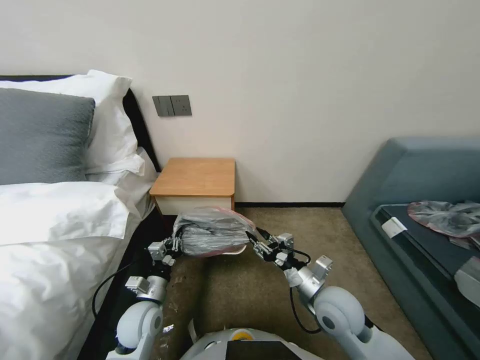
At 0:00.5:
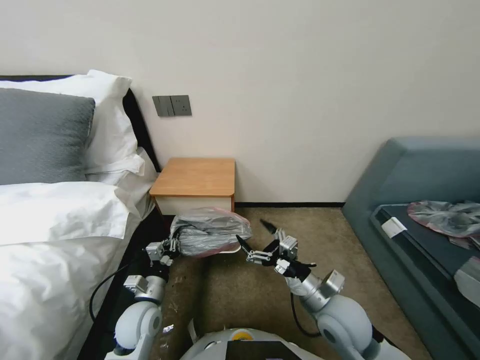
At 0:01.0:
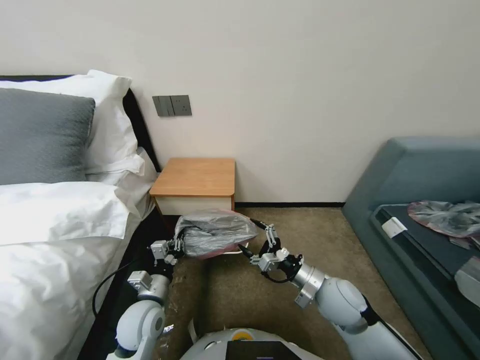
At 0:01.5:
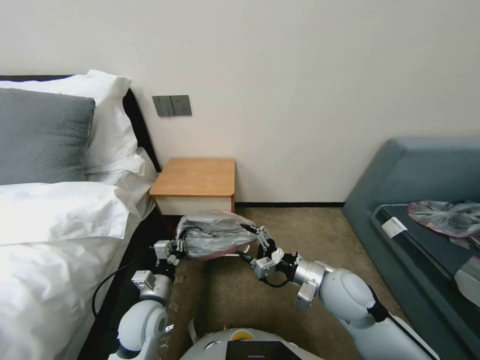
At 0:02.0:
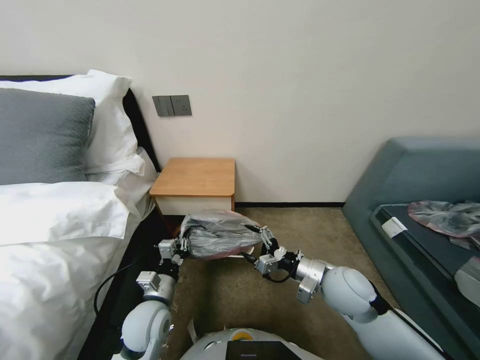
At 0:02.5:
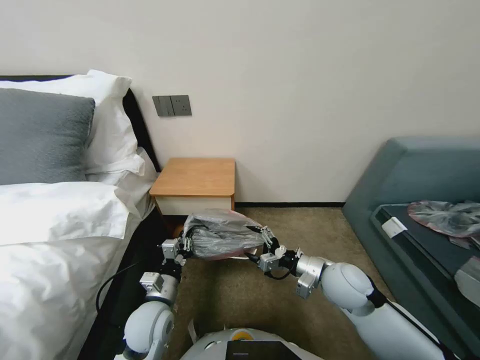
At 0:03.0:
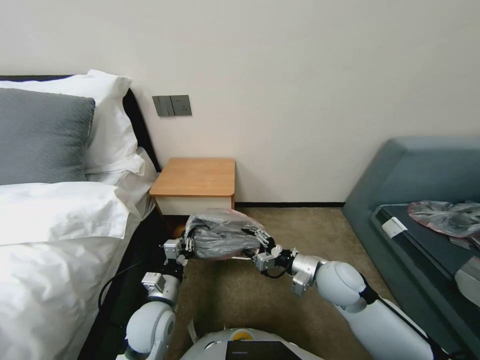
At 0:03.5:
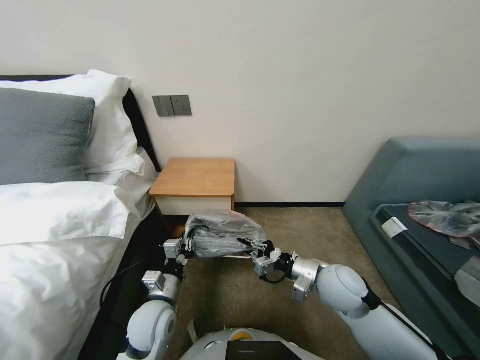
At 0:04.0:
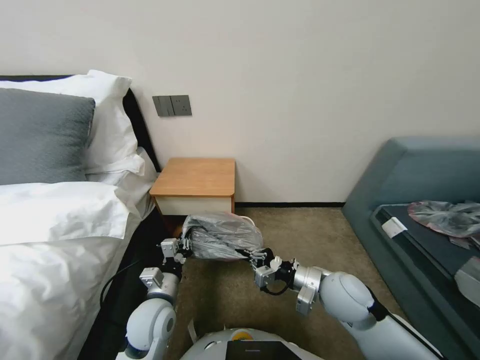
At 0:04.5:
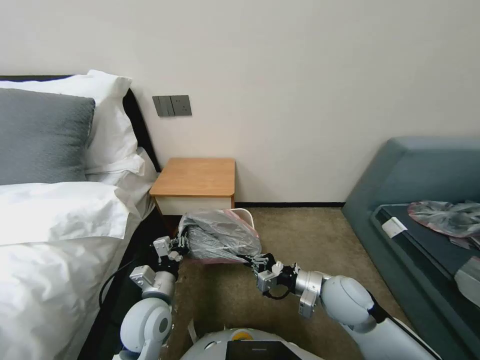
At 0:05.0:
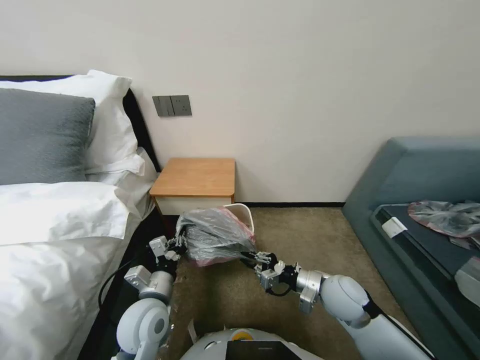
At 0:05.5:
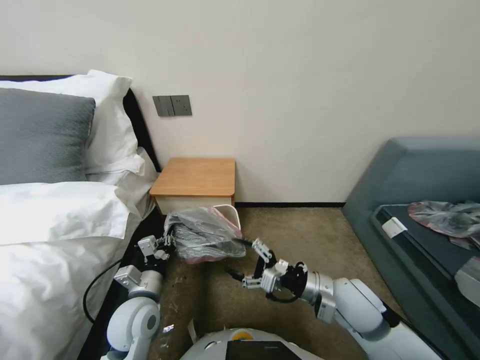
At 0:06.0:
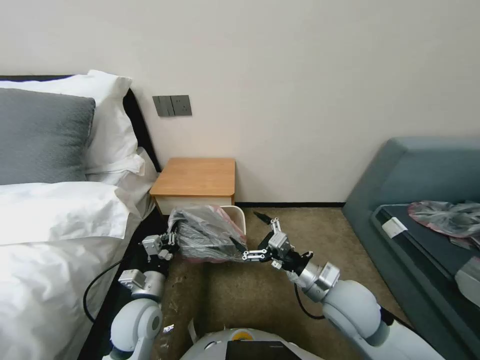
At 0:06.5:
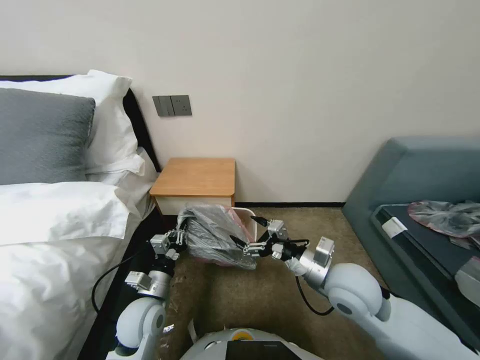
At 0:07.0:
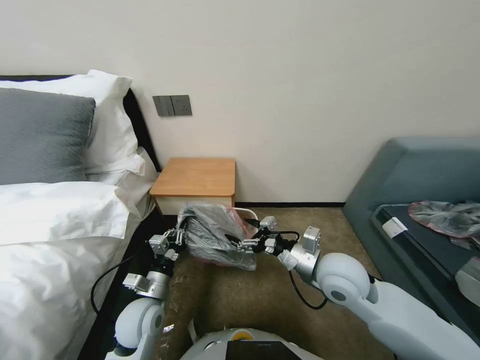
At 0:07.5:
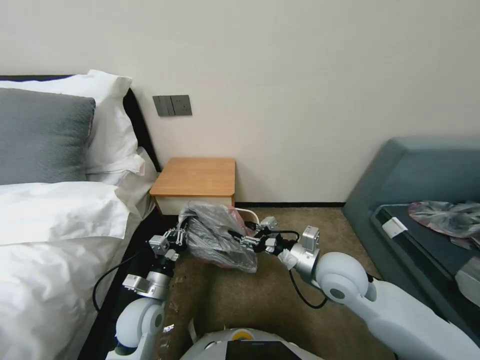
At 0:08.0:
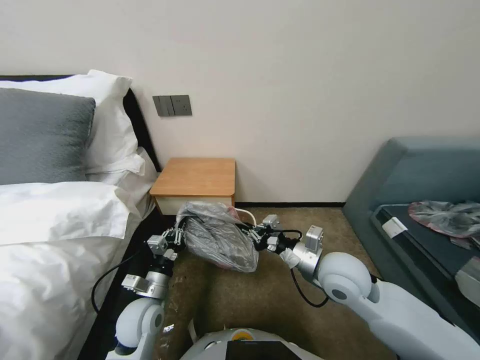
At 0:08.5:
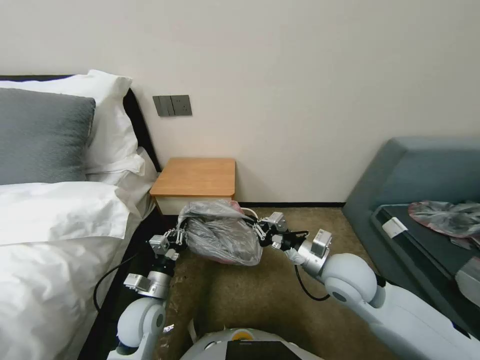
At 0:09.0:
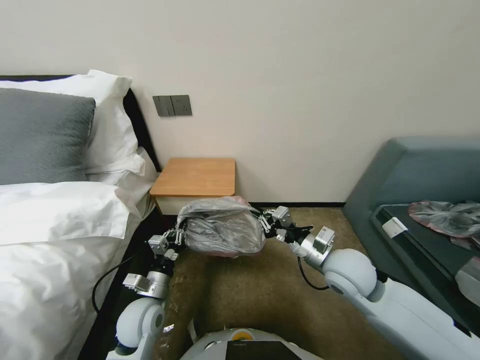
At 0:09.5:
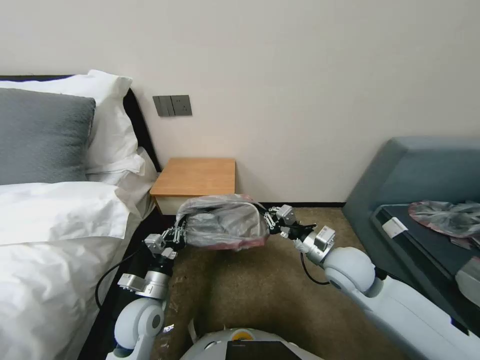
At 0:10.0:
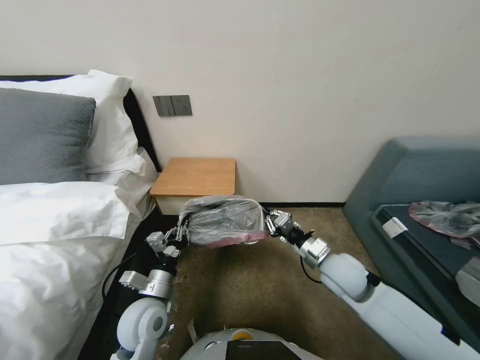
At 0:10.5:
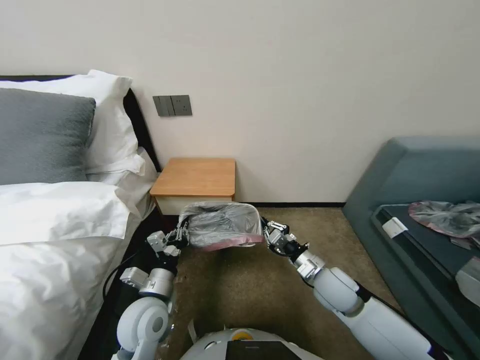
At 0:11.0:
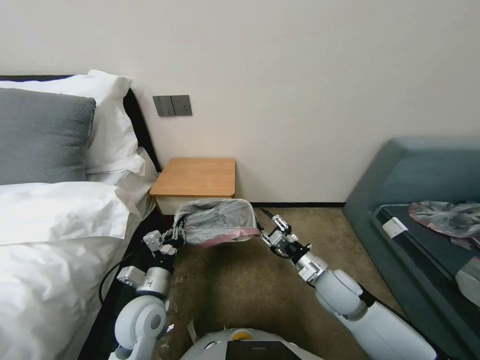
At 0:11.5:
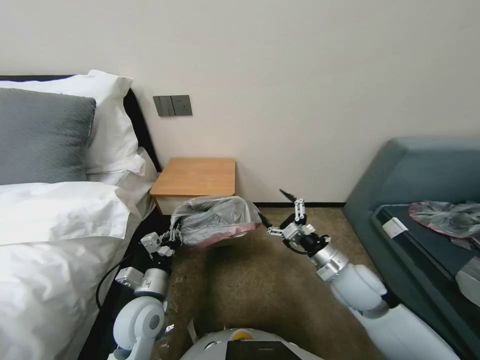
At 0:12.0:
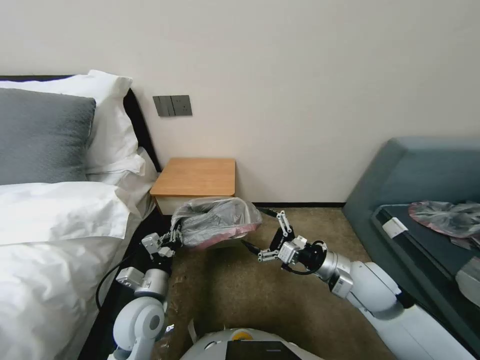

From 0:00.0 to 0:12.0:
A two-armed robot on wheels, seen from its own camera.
Task of the whole recording: Pick up the garbage bag from the table and place it over the trash can.
From 0:00.0 to 0:02.0: The right gripper opens.
From 0:02.0 to 0:04.0: The right gripper closes up.
From 0:04.0 to 0:06.0: The right gripper opens.
From 0:06.0 to 0:08.0: The right gripper moves about 5 cm, and closes its fingers.
From 0:08.0 to 0:10.0: The right gripper changes place by some 5 cm.
From 0:10.0 to 0:12.0: The right gripper changes place by roughly 5 cm, and opens up.

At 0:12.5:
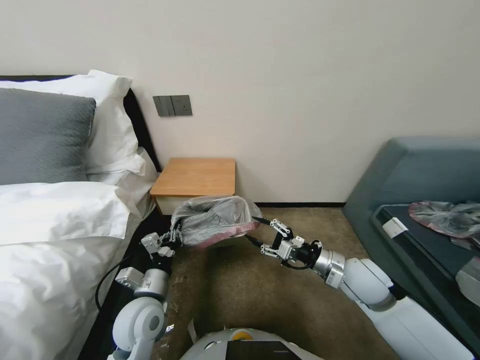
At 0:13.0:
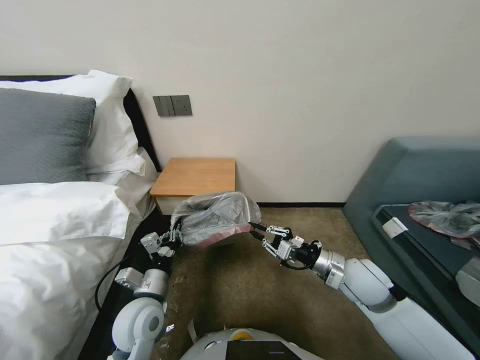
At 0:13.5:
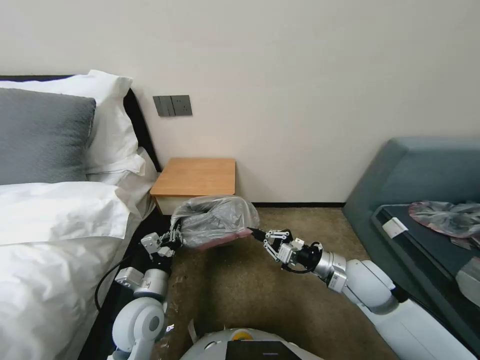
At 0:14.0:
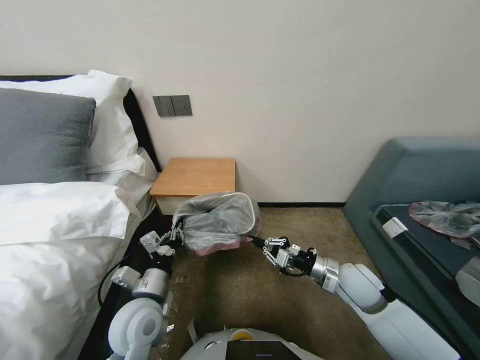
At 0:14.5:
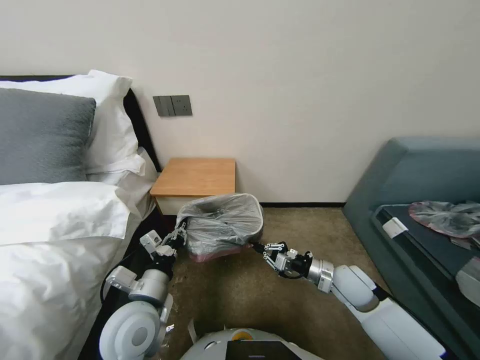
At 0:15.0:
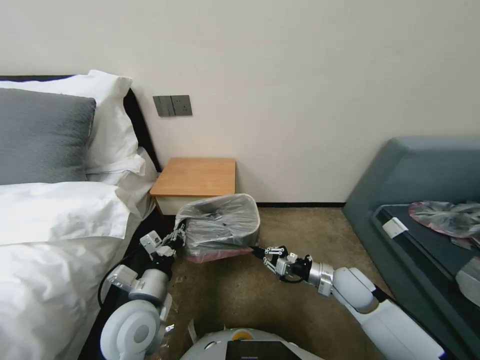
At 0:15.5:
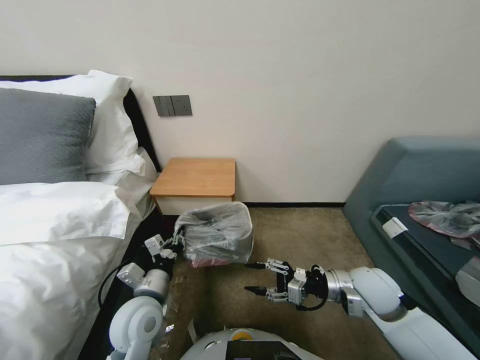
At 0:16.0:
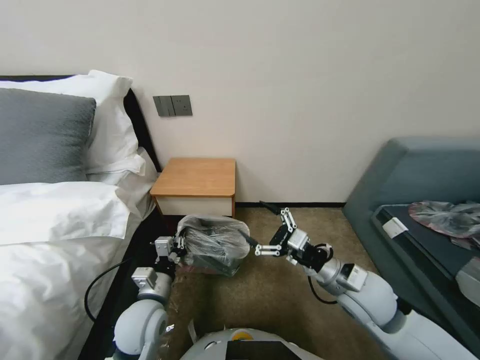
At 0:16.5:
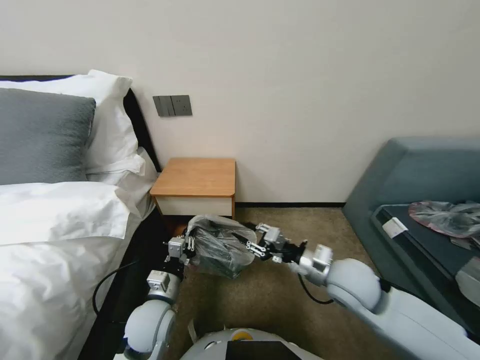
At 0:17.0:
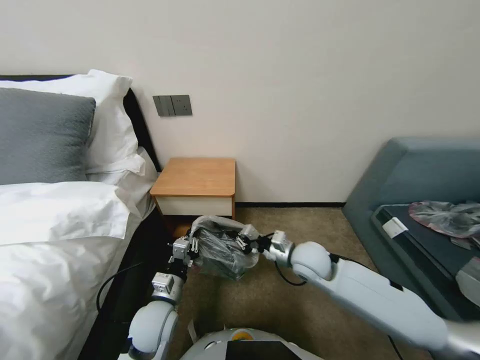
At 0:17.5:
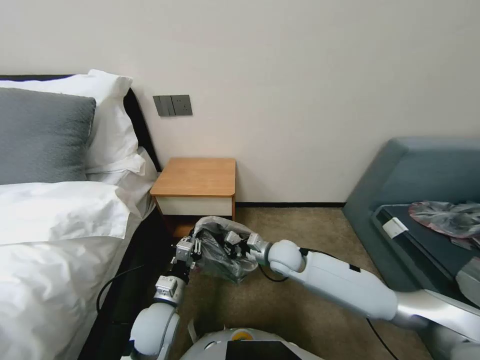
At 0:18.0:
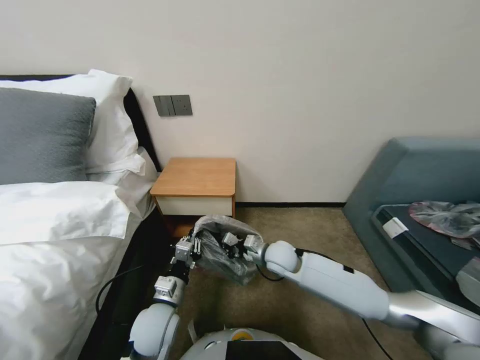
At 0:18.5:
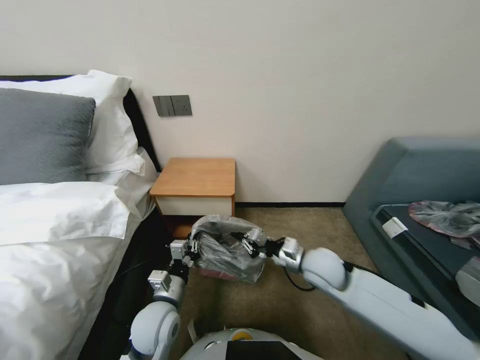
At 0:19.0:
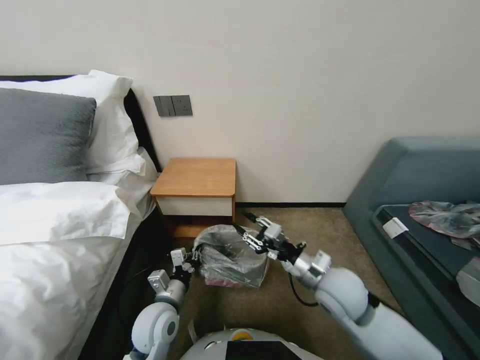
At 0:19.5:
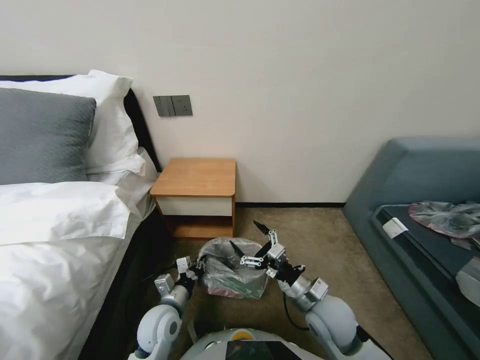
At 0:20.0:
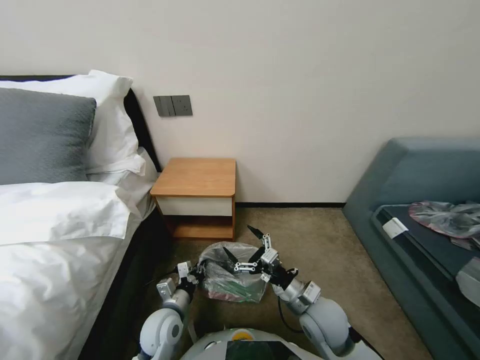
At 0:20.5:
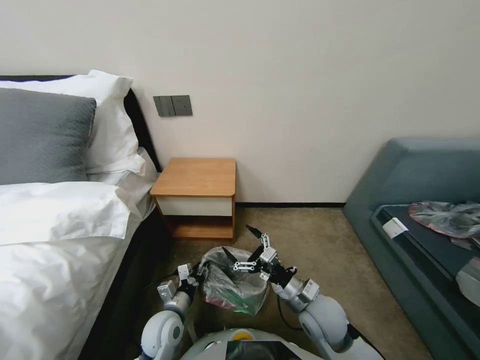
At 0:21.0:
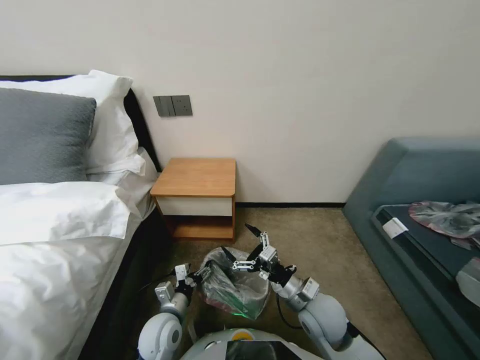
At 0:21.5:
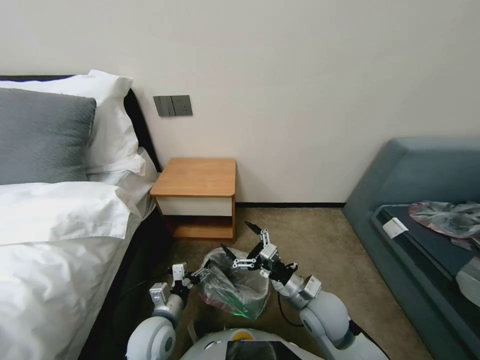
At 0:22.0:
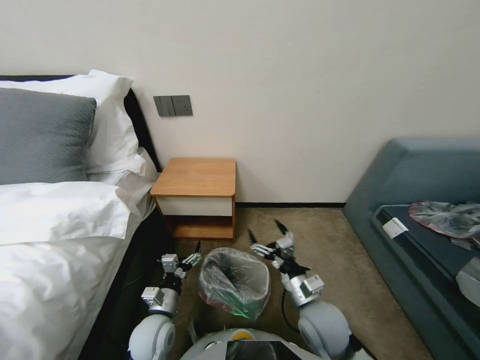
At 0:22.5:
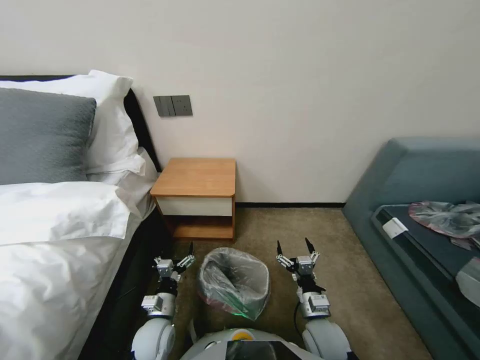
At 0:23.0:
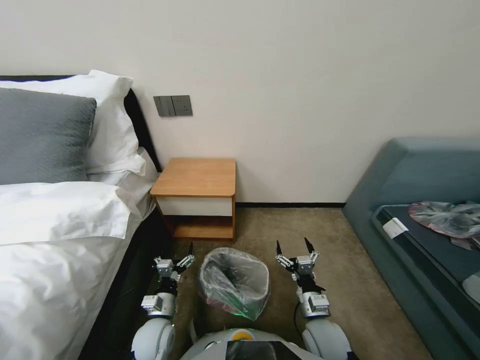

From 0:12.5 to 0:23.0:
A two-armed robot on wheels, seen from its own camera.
Task of the whole recording: Pick up the garbage bag from the table and place it over the trash can.
From 0:12.5 to 0:14.5: The right gripper moves downward, some 5 cm, and closes its fingers; the left gripper changes place by roughly 5 cm.
From 0:14.5 to 0:16.5: The right gripper shifts some 10 cm upward, and opens its fingers; the left gripper shifts some 5 cm downward.
From 0:16.5 to 0:19.0: The right gripper moves about 10 cm forward and comes back.
From 0:19.0 to 0:21.0: The two grippers go about 5 cm downward. The right gripper opens; the left gripper opens.
From 0:21.0 to 0:23.0: The right gripper is displaced downward by about 10 cm.

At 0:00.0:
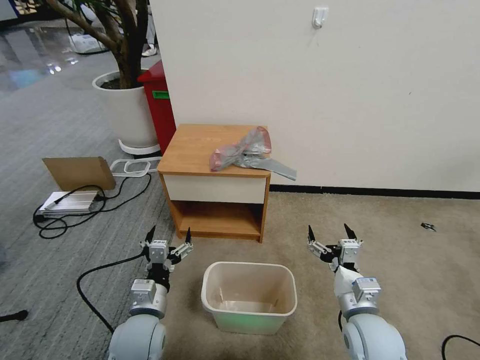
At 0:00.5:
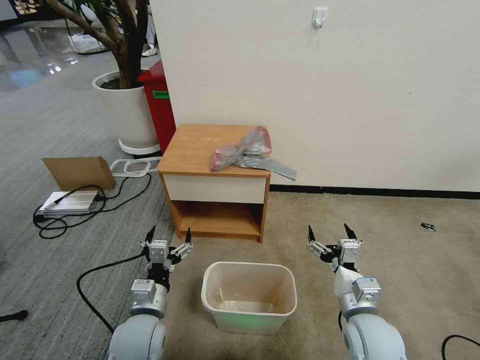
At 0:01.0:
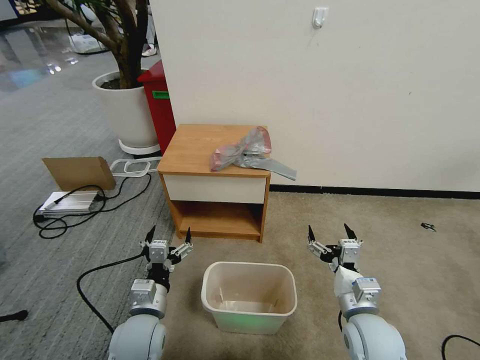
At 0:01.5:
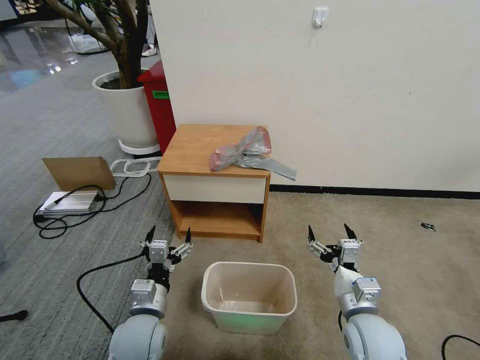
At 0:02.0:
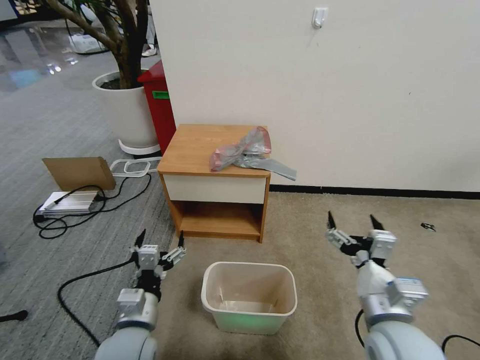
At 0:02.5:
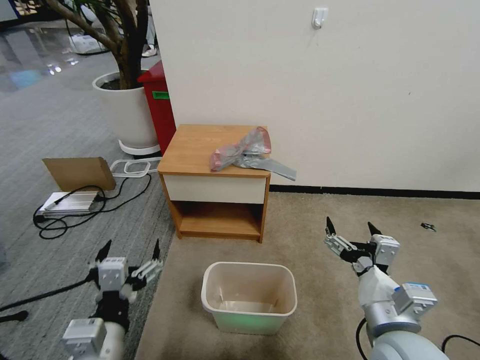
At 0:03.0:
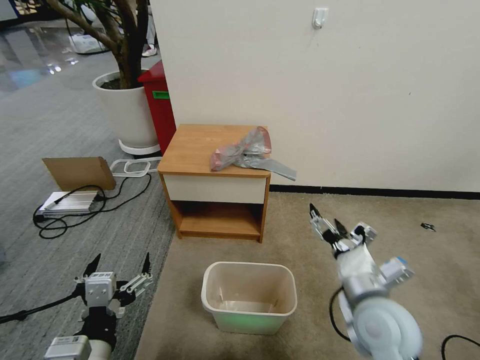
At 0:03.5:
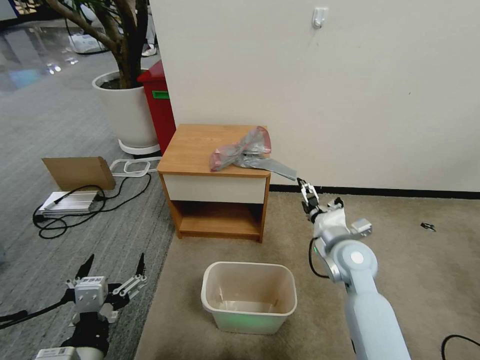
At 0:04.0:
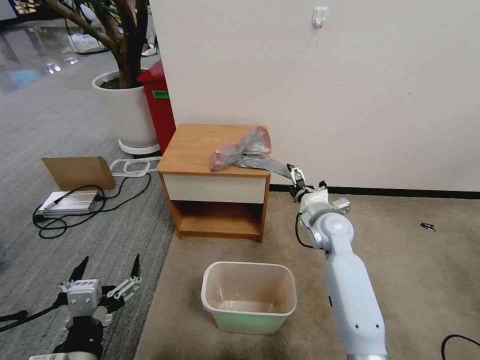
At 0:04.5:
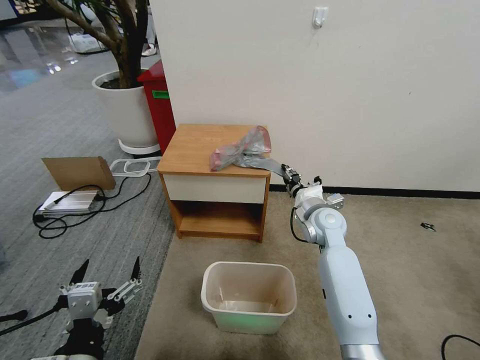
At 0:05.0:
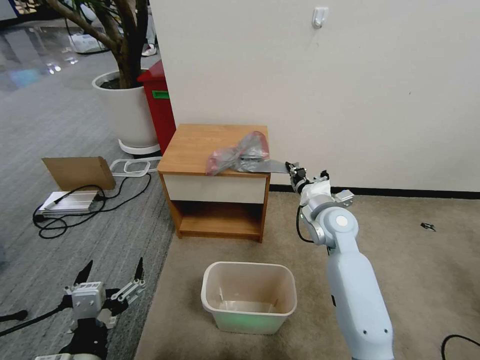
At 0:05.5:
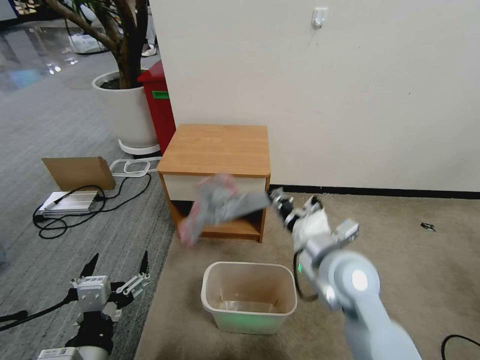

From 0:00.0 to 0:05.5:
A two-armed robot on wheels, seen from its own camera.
Task of the whole recording: Pick up the garbage bag from the table and place it over the trash can.
From 0:02.0 to 0:03.5: The right gripper goes roughly 15 cm forward, while the left gripper travels backward and upward by some 15 cm.
From 0:03.5 to 0:05.5: The right gripper moves upward, roughly 5 cm, goes forward and returns, approximately 10 cm each way, and closes its fingers.
